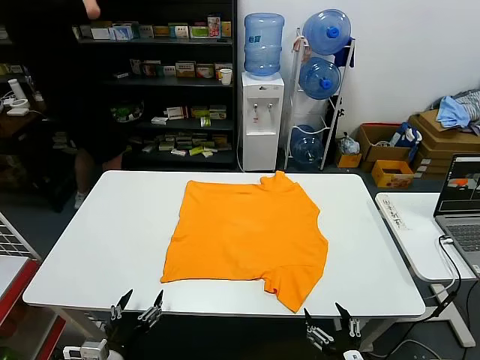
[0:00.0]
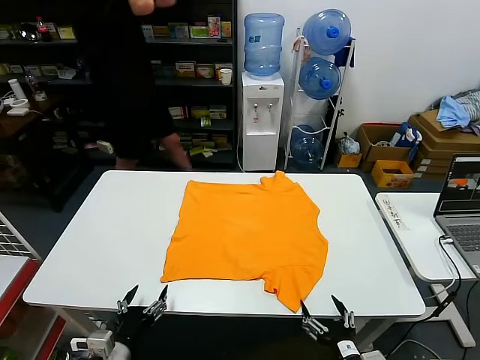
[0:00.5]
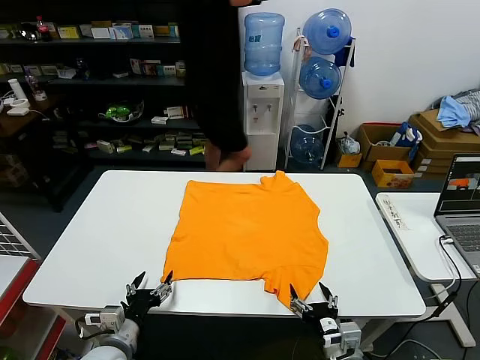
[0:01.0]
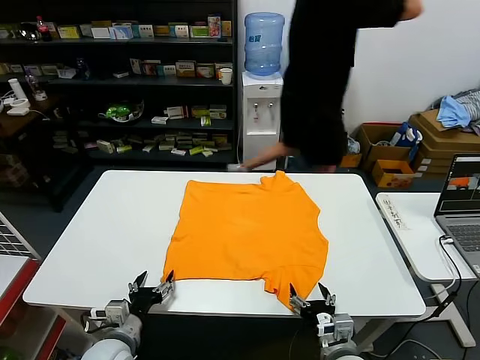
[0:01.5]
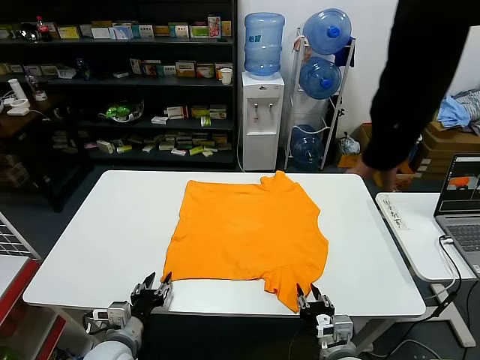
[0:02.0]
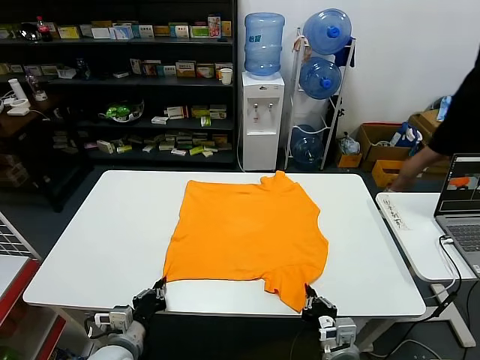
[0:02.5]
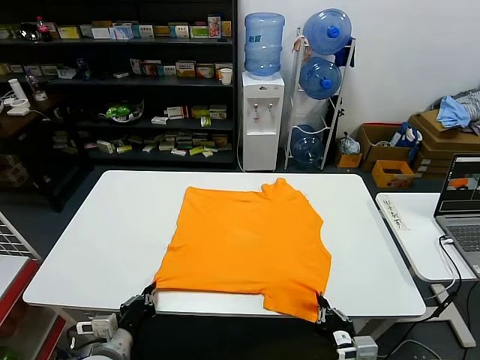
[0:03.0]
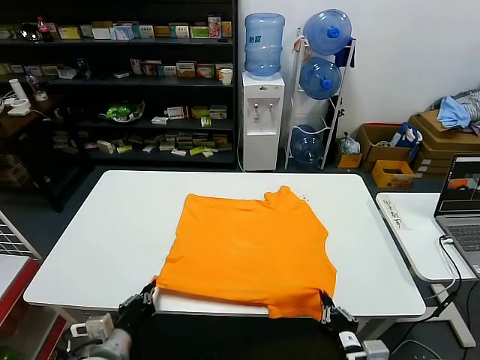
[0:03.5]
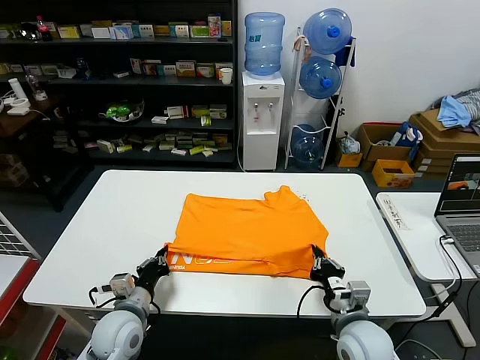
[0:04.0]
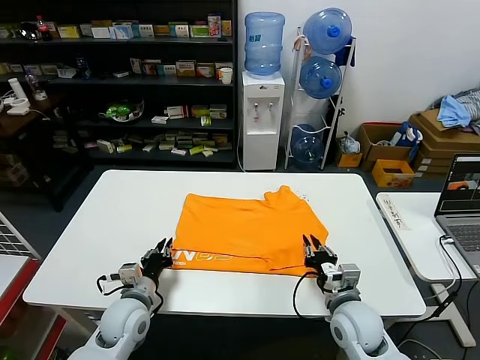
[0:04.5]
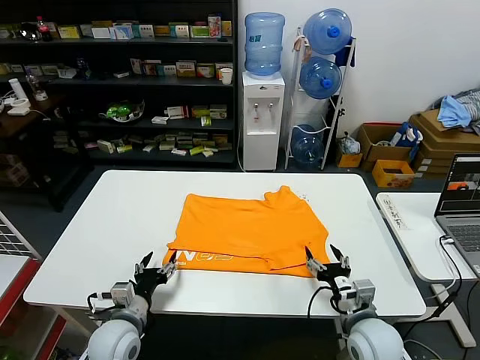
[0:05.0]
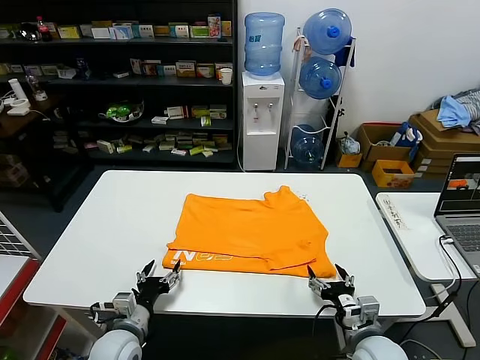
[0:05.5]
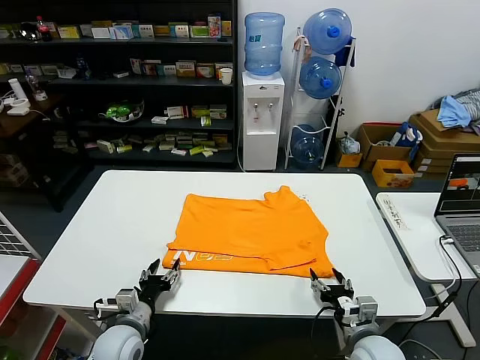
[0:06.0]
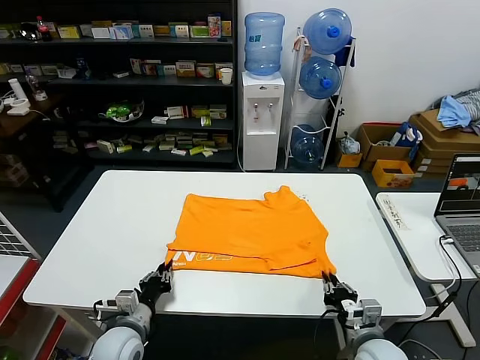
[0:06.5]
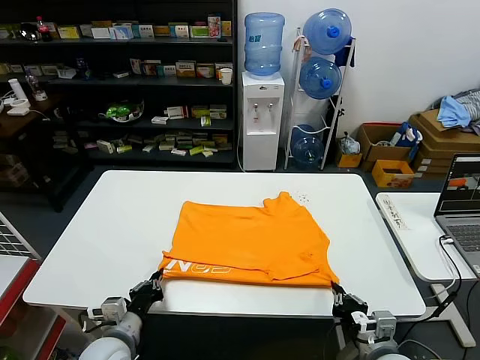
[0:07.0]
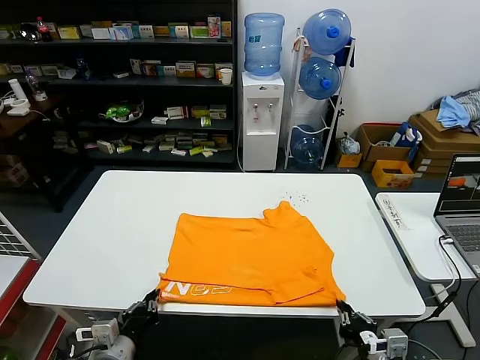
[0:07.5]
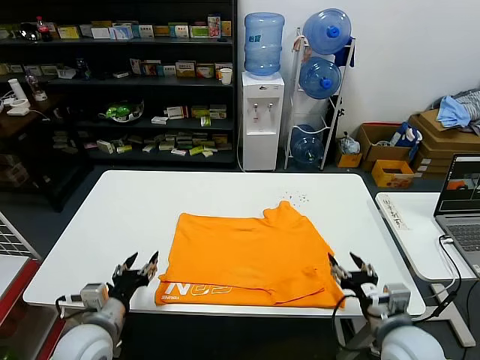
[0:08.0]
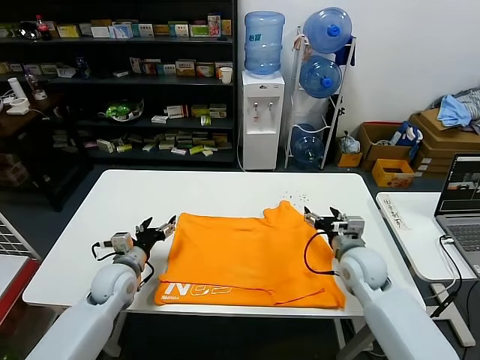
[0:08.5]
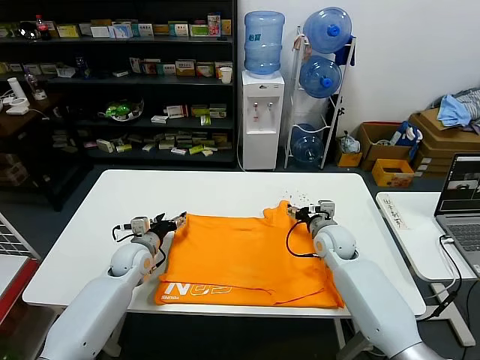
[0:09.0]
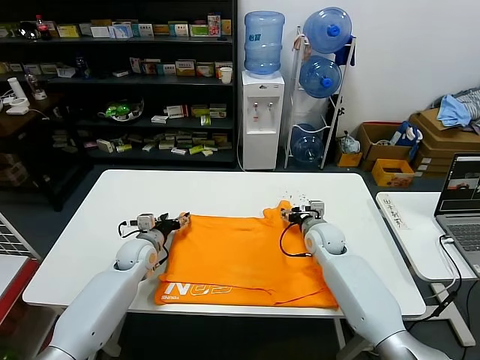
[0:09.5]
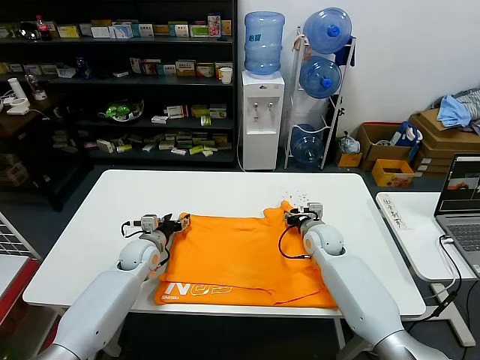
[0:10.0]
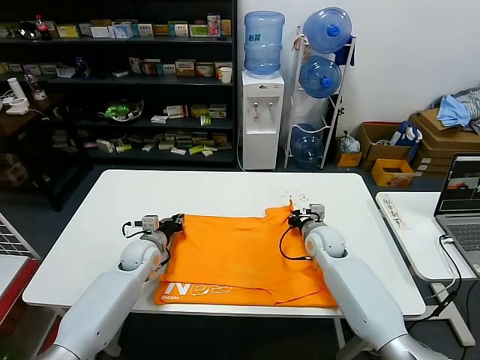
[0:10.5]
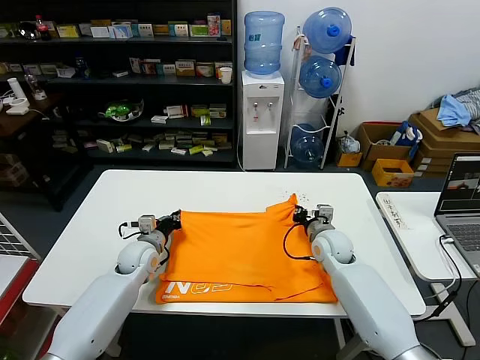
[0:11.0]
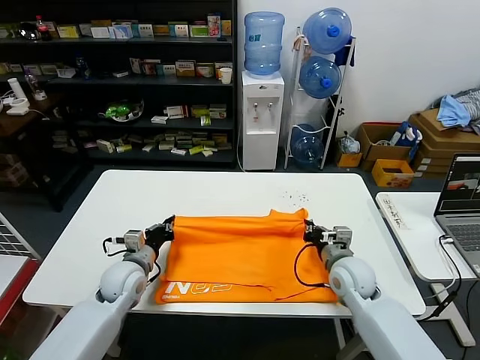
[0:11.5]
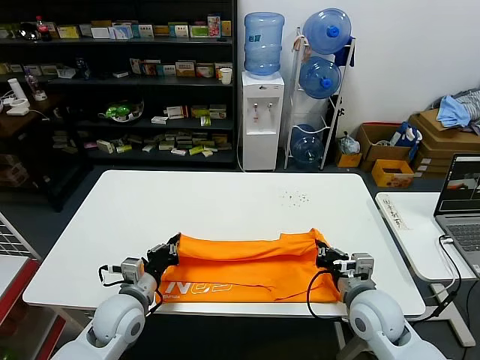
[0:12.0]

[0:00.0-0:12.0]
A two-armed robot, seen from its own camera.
Task of the whole recording: fold and organize the clothes.
Step, 0:00.0 to 0:02.5: use both grippers simultaneously to clamp the lower edge of the clothing fabric.
Step, 0:03.0 to 0:04.5: use both grippers to drag the lower edge of the fabric forward and fold it over the upper edge.
Step, 0:05.0 to 0:07.5: Drag the clothes downward with both gripper.
Step, 0:08.0 to 0:10.5: use both grippers simultaneously to clamp the upper edge of the clothing fabric.
0:02.0 to 0:04.0: The left gripper moves about 5 cm, and closes its fingers; the right gripper moves forward, roughly 5 cm, and closes.
0:04.0 to 0:06.0: The right gripper changes place by about 5 cm, and opens. The left gripper ends up approximately 5 cm from where it was, and opens up.
0:06.0 to 0:08.0: The grippers both shift upward by roughly 10 cm. The right gripper closes, then reopens. The left gripper closes, then reopens.
0:08.0 to 0:10.0: The grippers both shift forward by some 25 cm.
0:10.0 to 0:12.0: The two grippers go about 20 cm backward. The right gripper closes its fingers; the left gripper closes its fingers.

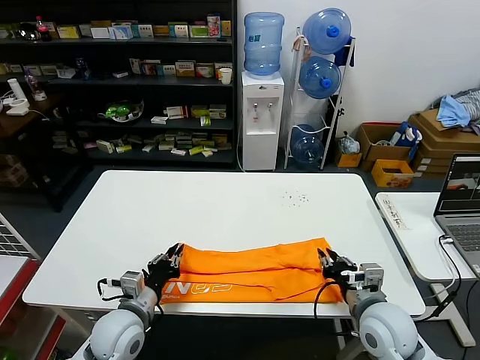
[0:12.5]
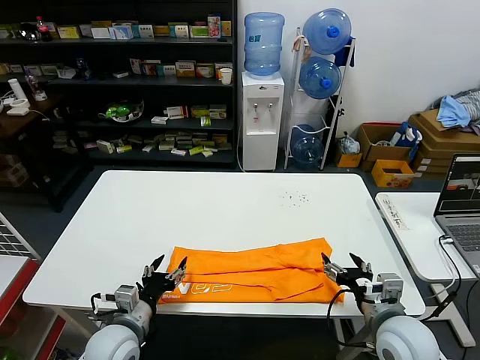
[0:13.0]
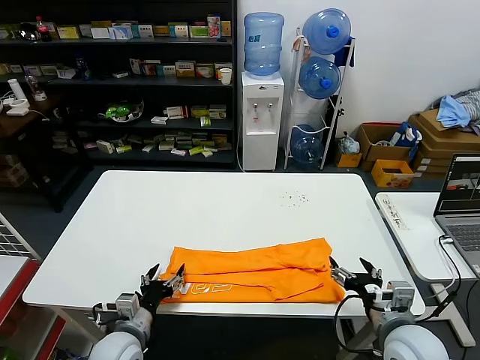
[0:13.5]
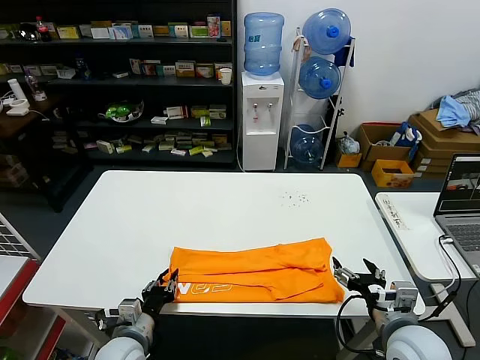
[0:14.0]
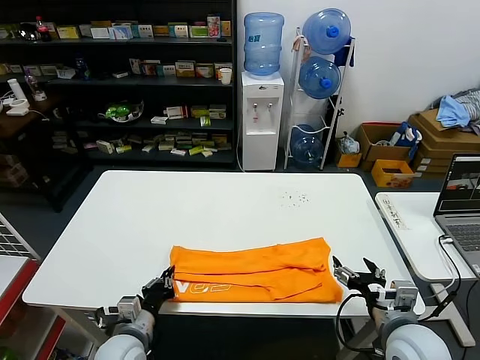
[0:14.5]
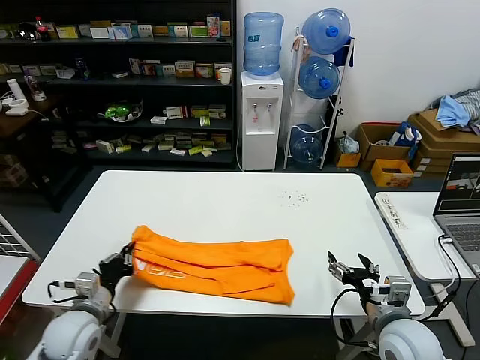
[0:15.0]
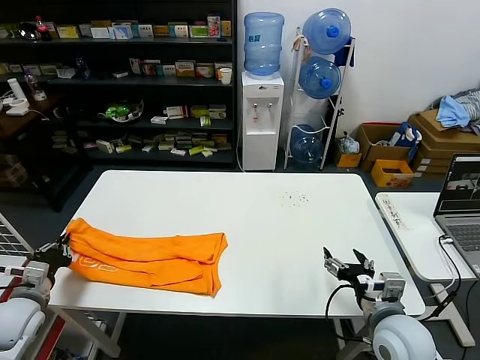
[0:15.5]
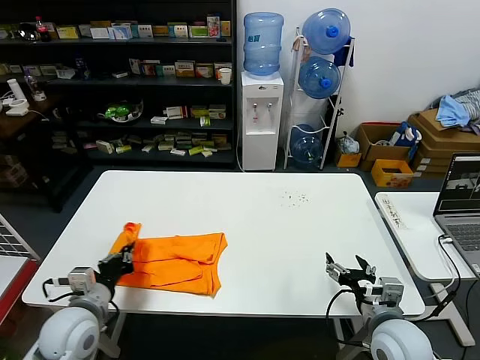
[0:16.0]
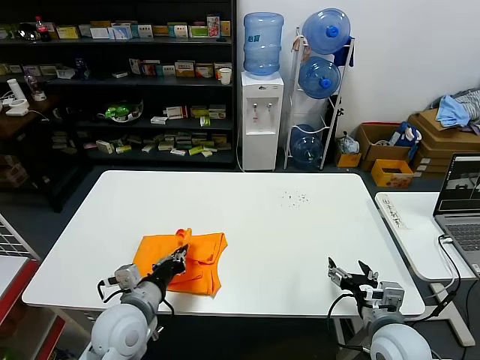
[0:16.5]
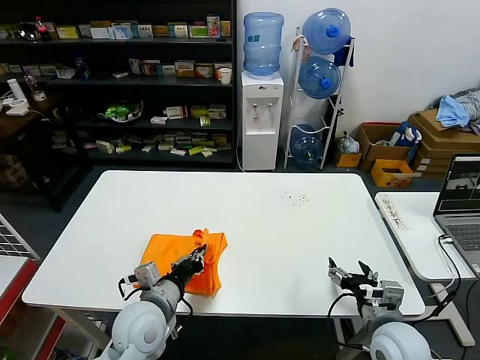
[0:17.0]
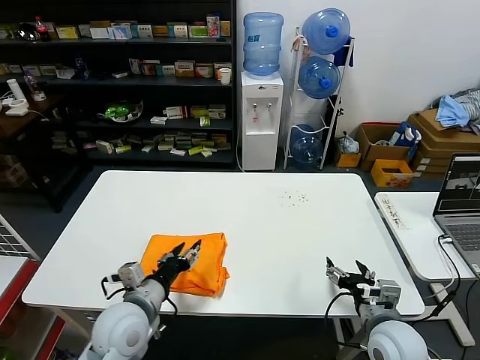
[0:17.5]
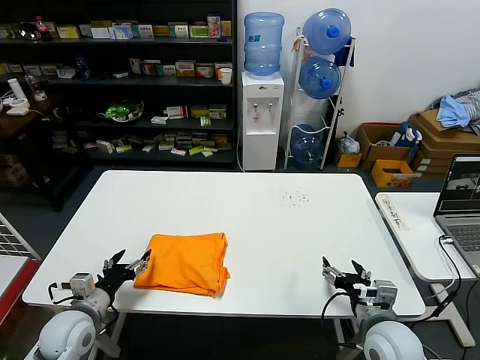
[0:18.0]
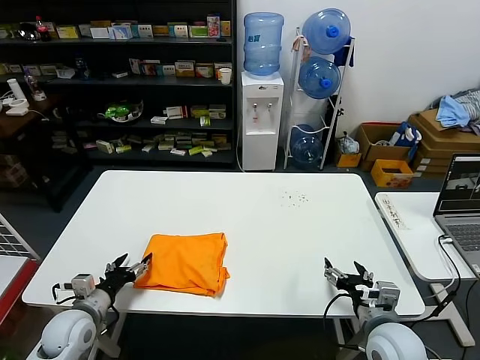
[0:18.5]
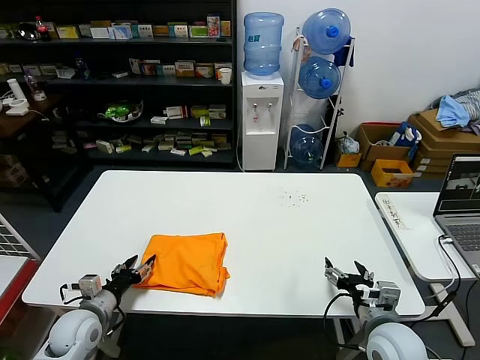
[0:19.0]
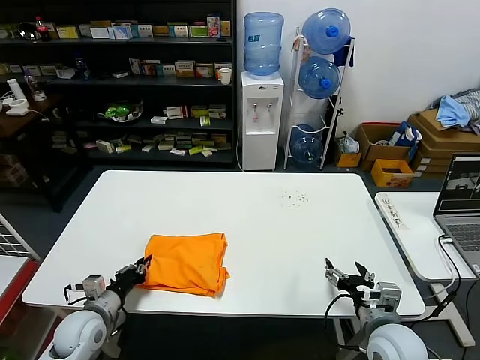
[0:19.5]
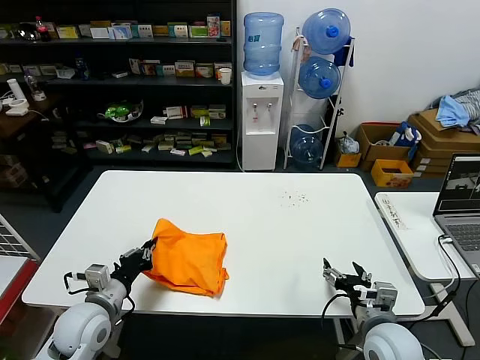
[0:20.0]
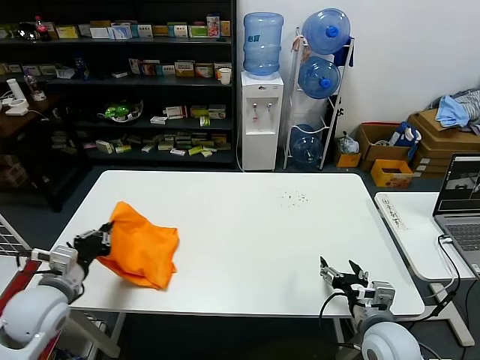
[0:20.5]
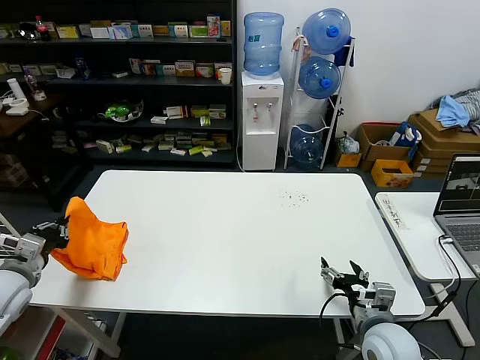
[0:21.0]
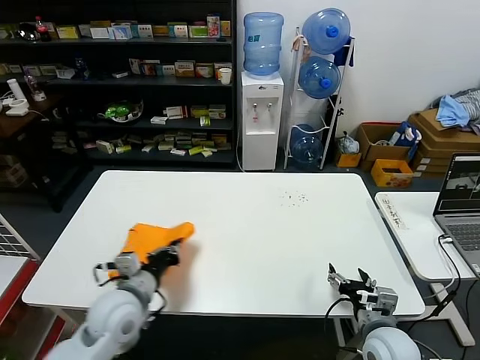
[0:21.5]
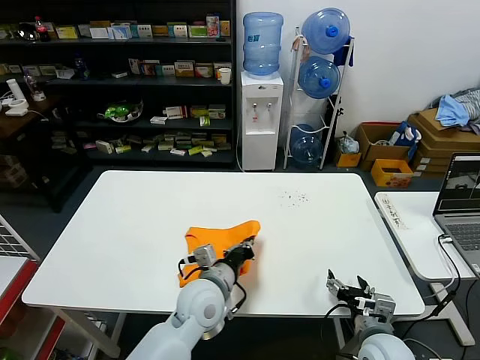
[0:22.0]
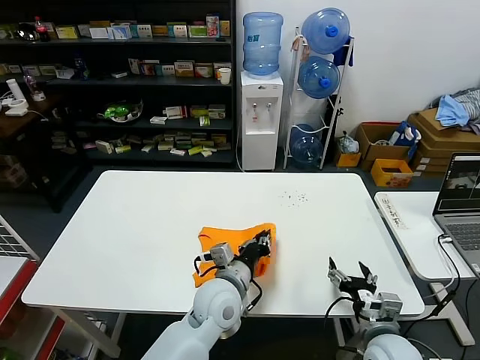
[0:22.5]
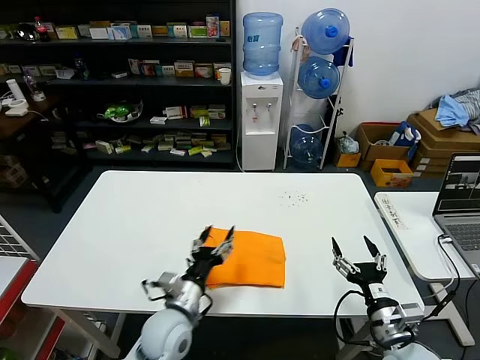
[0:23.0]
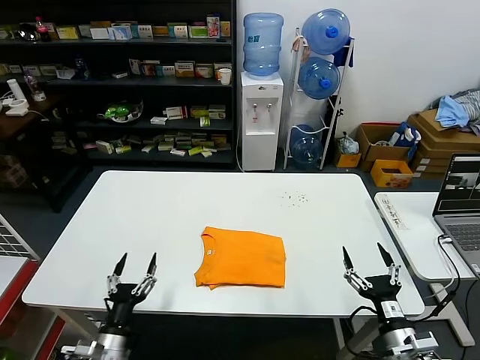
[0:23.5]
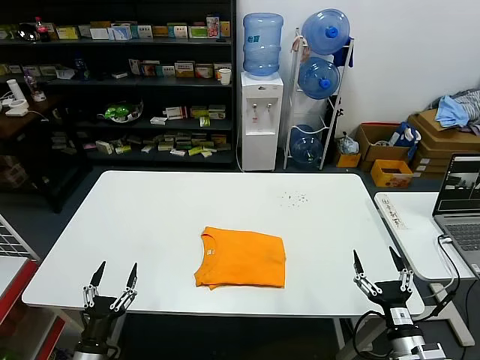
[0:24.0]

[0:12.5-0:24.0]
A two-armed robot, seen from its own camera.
Task of the whole recording: fold and organize the clothes.
Step, 0:13.0 to 0:14.0: use the left gripper to clamp the left edge of the fabric.
Step, 0:14.5 to 0:17.0: use the left gripper to drag the left edge of the fabric to the left and folds it over the right edge.
Step, 0:17.5 to 0:22.5: Flip the folded clothes over with left gripper.
0:12.5 to 0:14.5: The left gripper is displaced downward by some 5 cm, and opens, then closes once more. The right gripper moves some 5 cm, and opens.
0:14.5 to 0:16.5: The left gripper is displaced upward by about 10 cm, and reaches some 20 cm to the left, then returns.
0:16.5 to 0:18.5: The left gripper heads to the left and downward, covering some 15 cm, and opens.
0:18.5 to 0:20.0: The left gripper heads to the right, covering roughly 5 cm, and closes its fingers.
0:20.0 to 0:22.0: The left gripper moves to the right, about 20 cm.
0:22.0 to 0:24.0: The right gripper heads backward and to the right, covering approximately 10 cm; the left gripper shifts approximately 30 cm to the left, backward and downward, and opens up.
